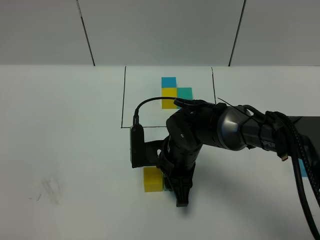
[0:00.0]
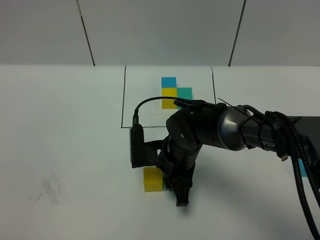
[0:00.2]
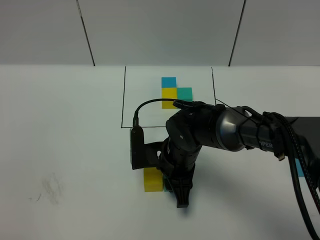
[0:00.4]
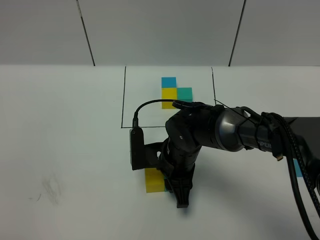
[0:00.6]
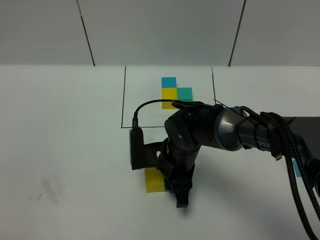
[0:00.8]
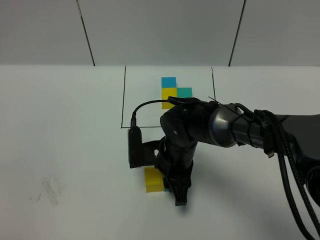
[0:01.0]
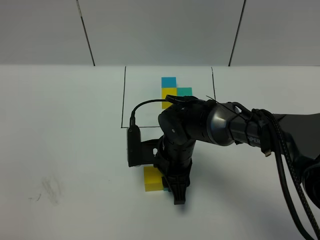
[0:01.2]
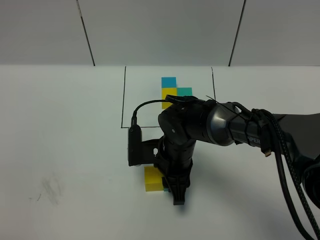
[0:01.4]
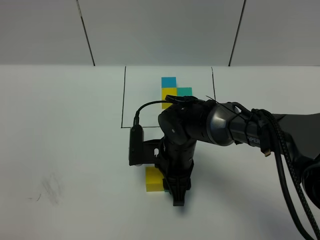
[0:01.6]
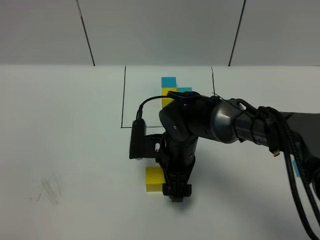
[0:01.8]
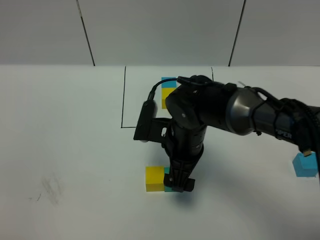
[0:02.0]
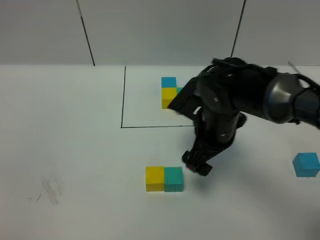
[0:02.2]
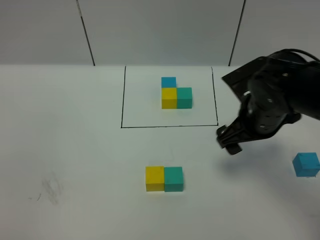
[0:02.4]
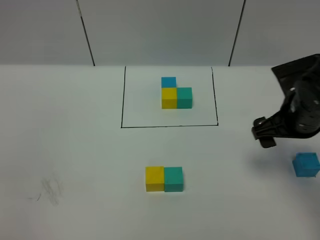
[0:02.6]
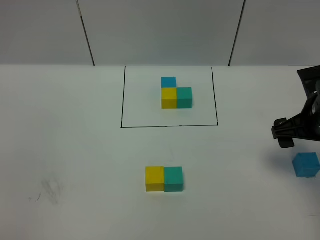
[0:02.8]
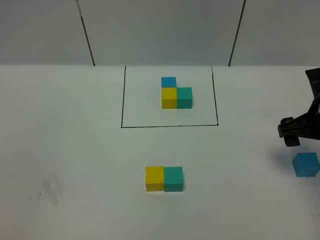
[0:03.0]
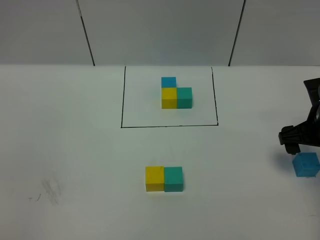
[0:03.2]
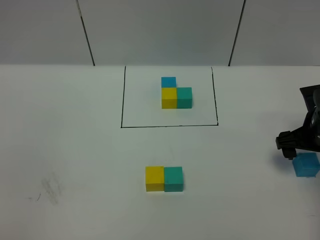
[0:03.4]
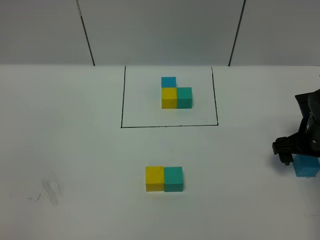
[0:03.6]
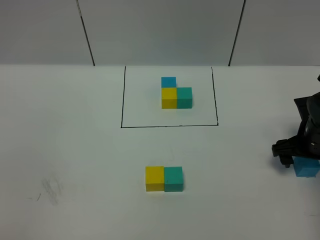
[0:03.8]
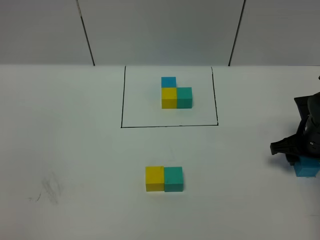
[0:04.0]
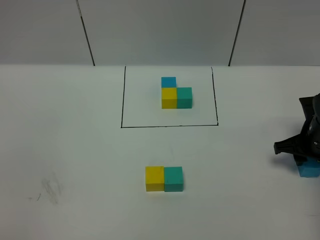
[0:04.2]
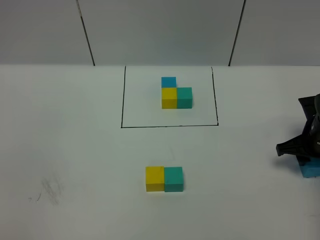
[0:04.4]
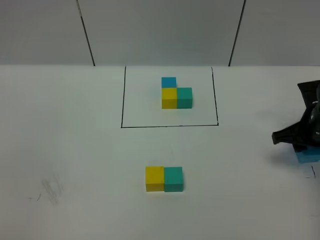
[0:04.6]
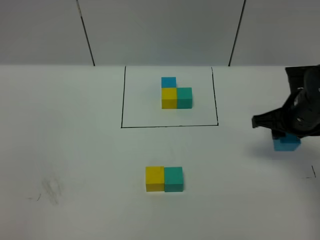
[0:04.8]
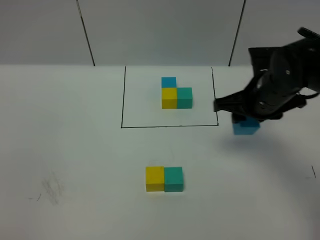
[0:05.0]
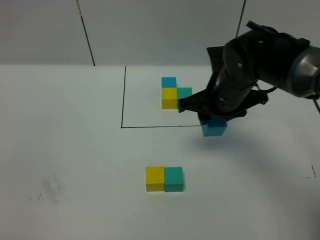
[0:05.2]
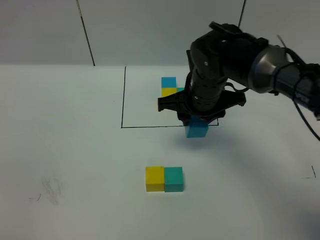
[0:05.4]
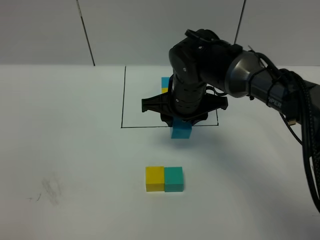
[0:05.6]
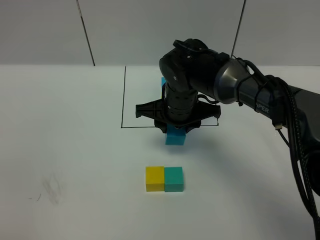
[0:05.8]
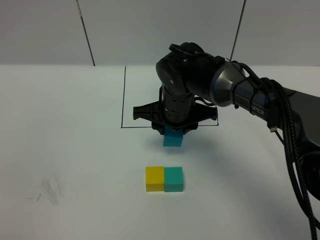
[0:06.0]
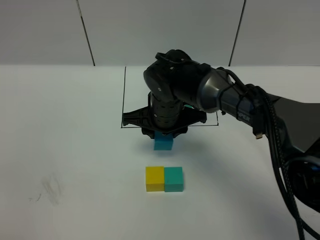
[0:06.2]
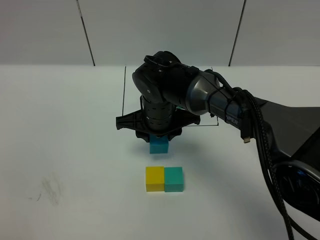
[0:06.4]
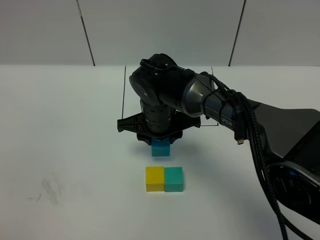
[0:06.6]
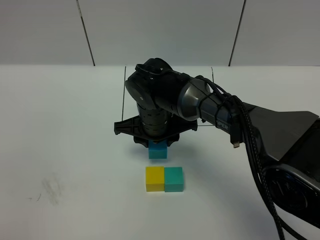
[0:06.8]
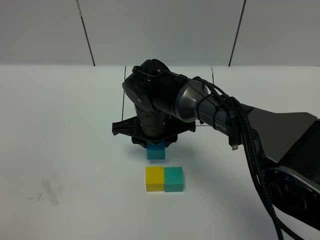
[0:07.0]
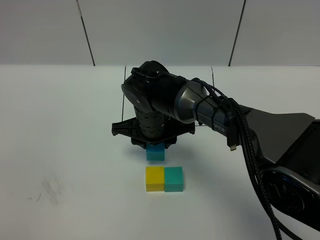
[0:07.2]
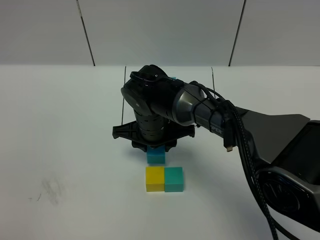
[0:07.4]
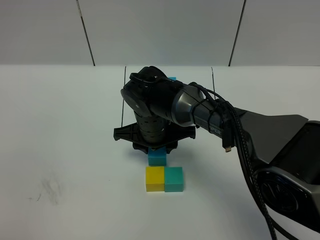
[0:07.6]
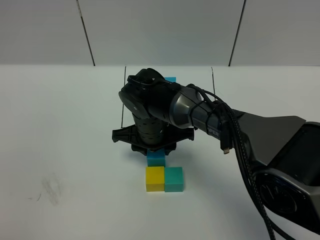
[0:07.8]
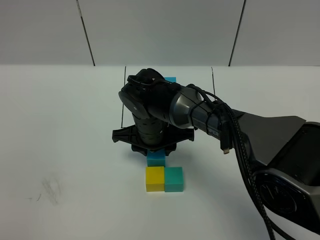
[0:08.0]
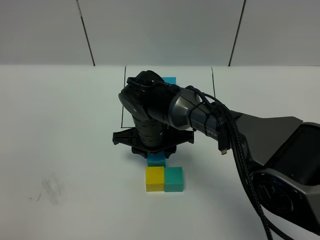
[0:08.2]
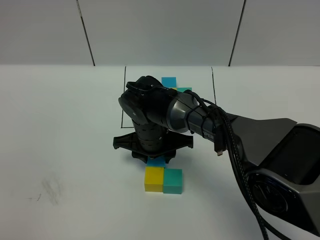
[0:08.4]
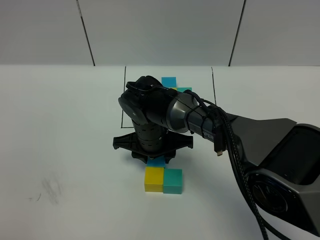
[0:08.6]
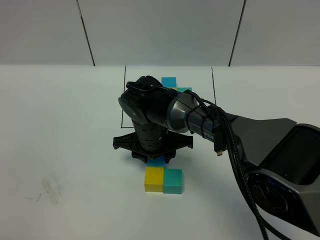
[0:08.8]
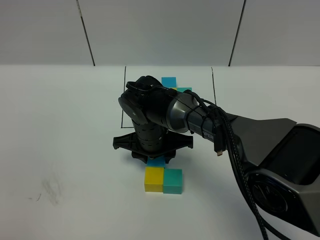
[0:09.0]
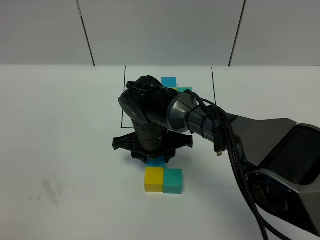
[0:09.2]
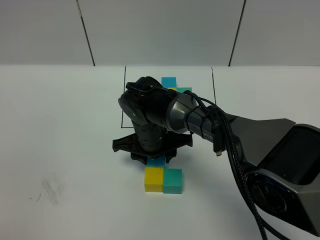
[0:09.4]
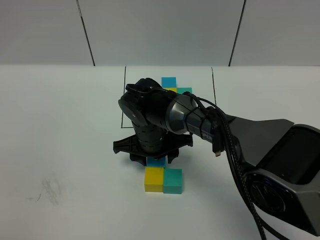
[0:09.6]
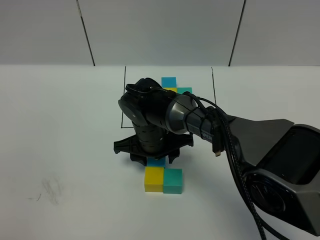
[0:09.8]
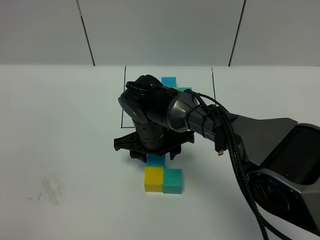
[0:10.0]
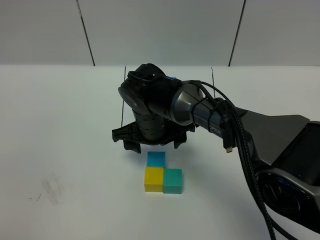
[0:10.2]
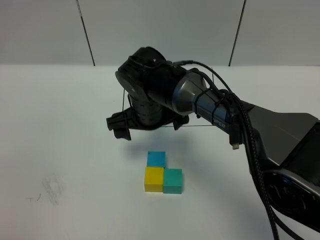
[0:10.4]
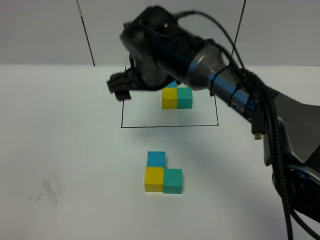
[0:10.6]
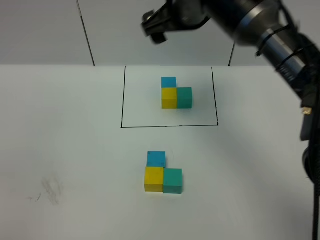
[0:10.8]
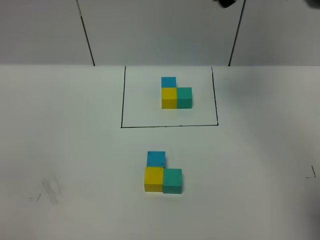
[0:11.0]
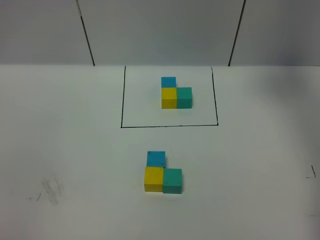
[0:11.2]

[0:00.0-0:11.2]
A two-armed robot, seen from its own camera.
Task of the whole recording: According to the building block template in front, assemble the scattered blocks together.
Step, 0:00.0 to 0:02.2: Put the green cube on the right of the yellow cube.
Step, 0:02.4 to 0:10.0: Put the blue cube in the front of the yellow cube.
0:00.0 to 0:01.6: The grippers move only a little.
0:01.6 to 0:03.2: The right gripper is displaced to the right by some 25 cm, and opens up.
0:03.2 to 0:04.8: The right gripper travels downward and back again, approximately 5 cm each way, and closes up.
0:04.8 to 0:06.4: The right gripper goes roughly 25 cm to the left.
0:06.4 to 0:09.6: The grippers stay close to where they were, moving slightly.
0:09.6 to 0:11.2: The right gripper travels upward and to the right by about 40 cm, and opens.

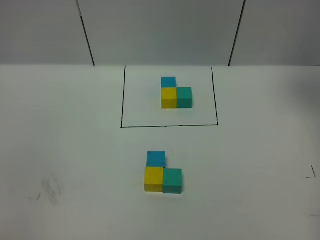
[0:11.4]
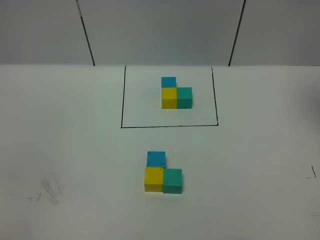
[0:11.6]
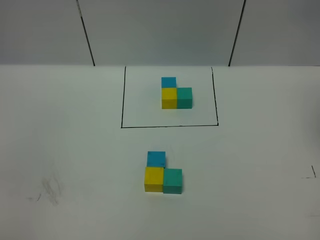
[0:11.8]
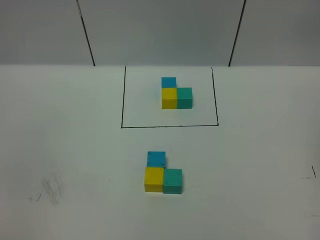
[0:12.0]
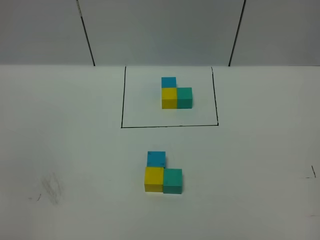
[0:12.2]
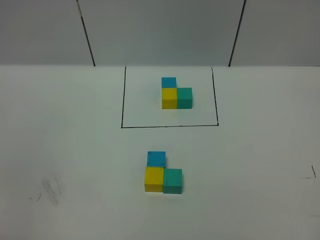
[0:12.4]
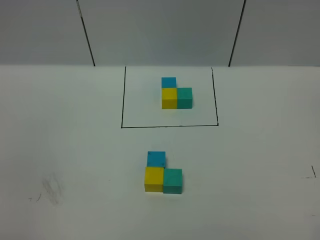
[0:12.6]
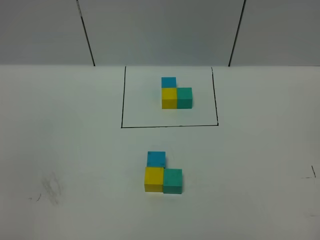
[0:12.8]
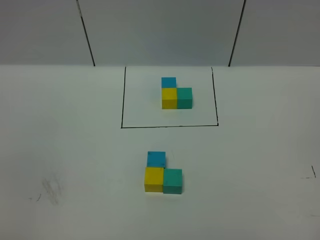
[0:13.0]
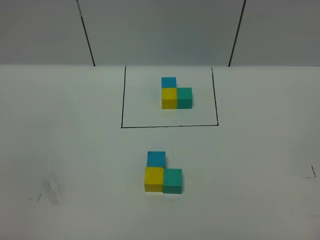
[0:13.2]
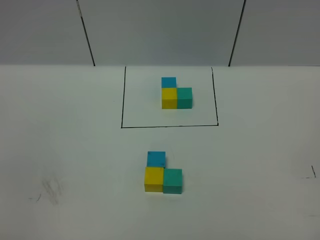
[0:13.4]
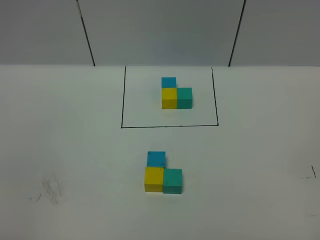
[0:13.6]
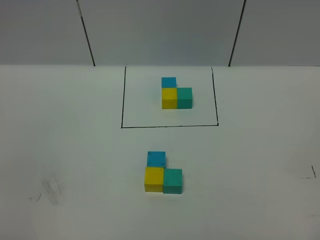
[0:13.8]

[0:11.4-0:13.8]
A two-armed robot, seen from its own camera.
Task of the whole recording: According to the building block template in front, assemble the scattered blocks together.
0:11.4 to 0:12.6: The right gripper travels backward by about 40 cm.

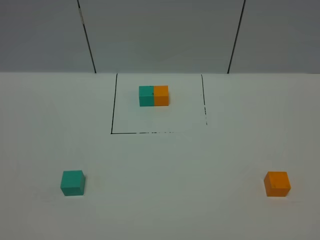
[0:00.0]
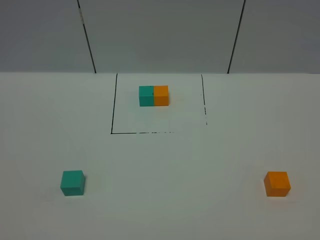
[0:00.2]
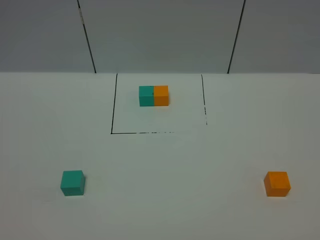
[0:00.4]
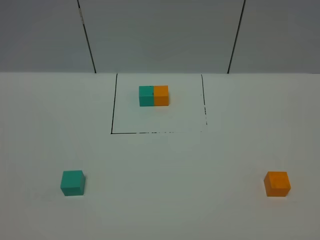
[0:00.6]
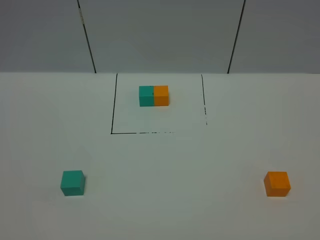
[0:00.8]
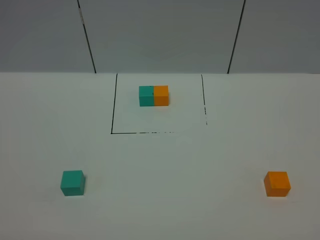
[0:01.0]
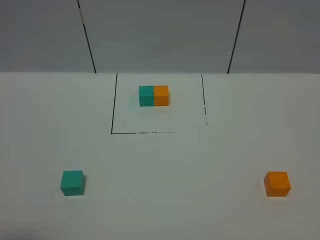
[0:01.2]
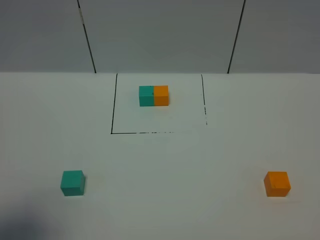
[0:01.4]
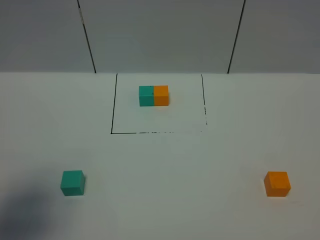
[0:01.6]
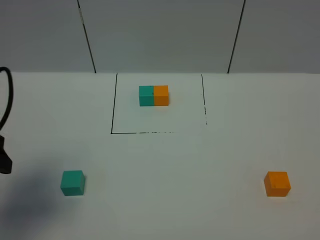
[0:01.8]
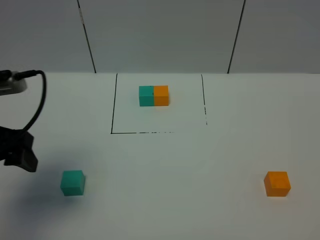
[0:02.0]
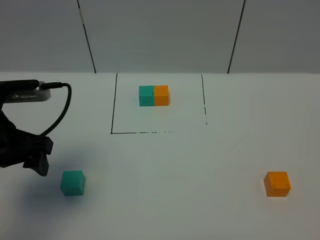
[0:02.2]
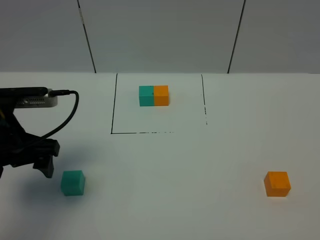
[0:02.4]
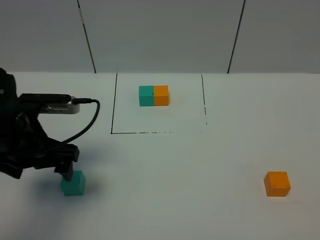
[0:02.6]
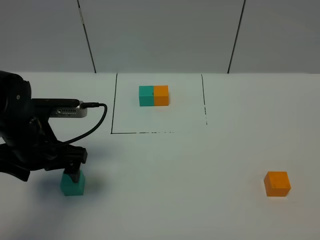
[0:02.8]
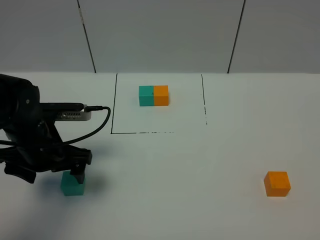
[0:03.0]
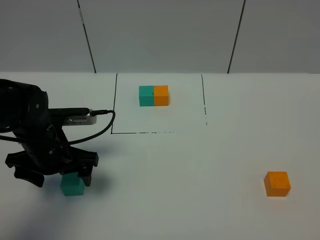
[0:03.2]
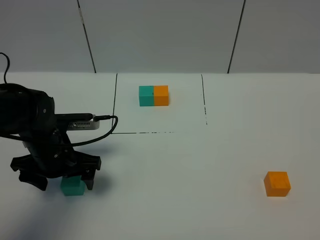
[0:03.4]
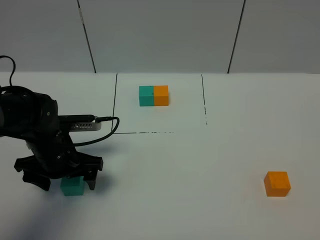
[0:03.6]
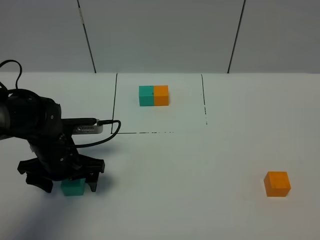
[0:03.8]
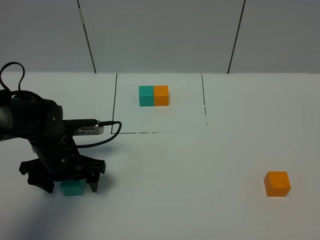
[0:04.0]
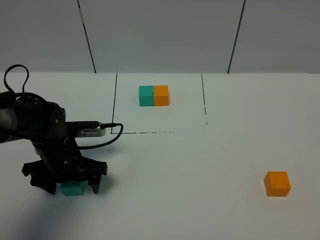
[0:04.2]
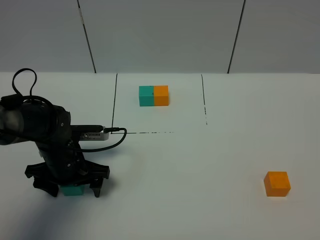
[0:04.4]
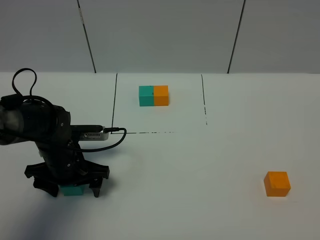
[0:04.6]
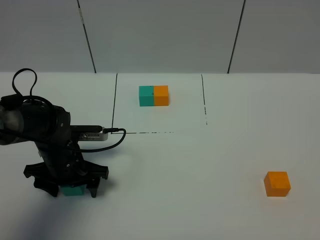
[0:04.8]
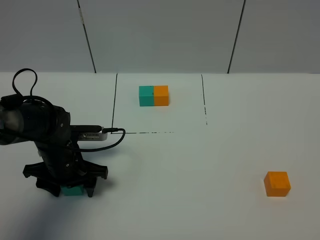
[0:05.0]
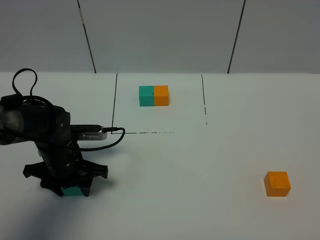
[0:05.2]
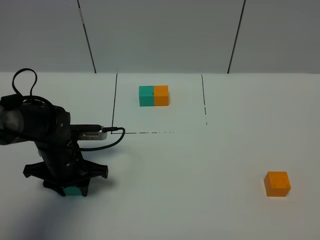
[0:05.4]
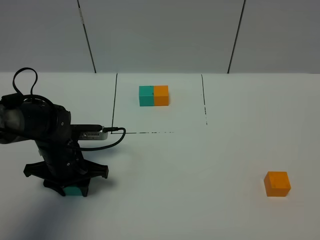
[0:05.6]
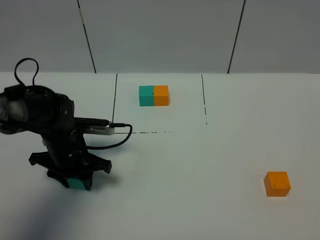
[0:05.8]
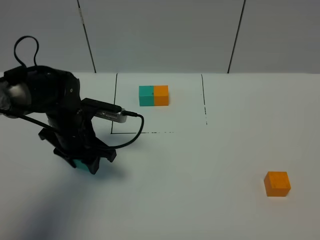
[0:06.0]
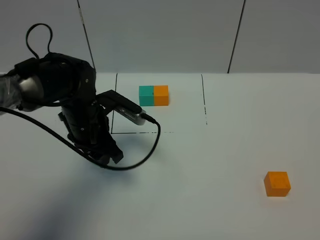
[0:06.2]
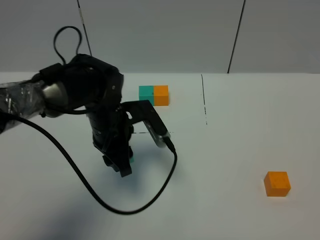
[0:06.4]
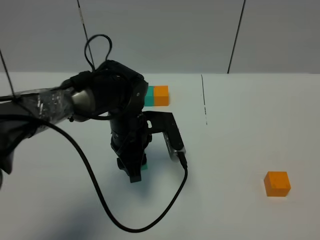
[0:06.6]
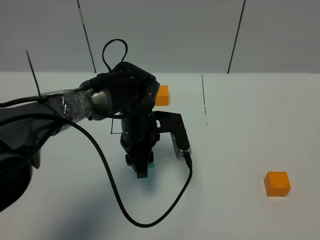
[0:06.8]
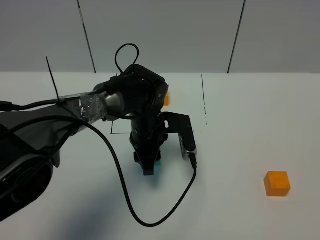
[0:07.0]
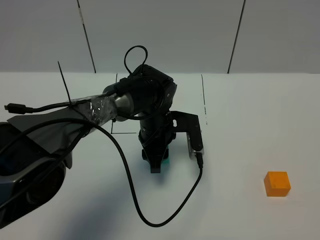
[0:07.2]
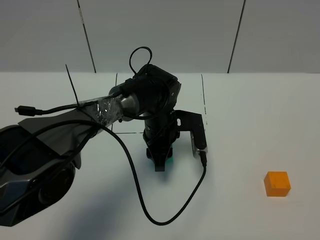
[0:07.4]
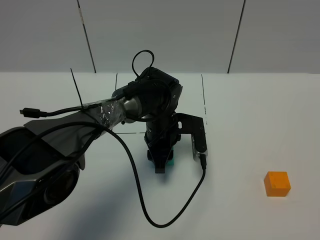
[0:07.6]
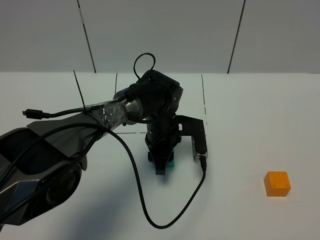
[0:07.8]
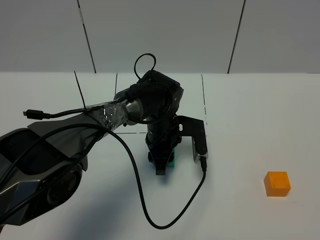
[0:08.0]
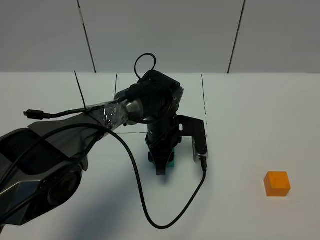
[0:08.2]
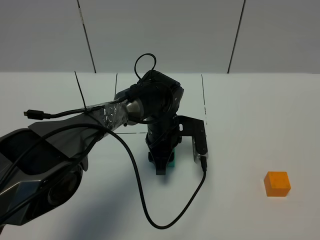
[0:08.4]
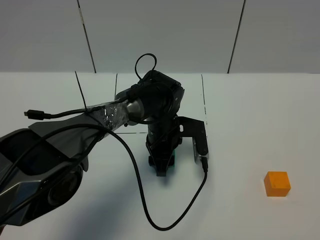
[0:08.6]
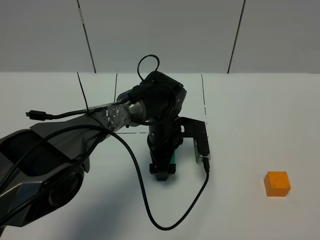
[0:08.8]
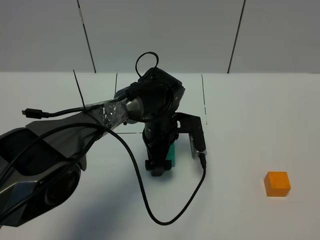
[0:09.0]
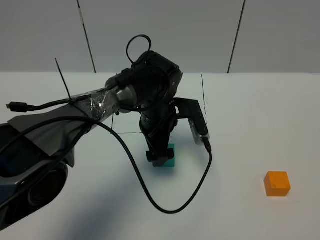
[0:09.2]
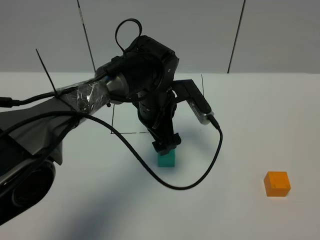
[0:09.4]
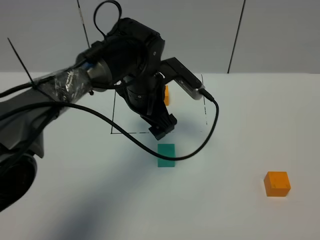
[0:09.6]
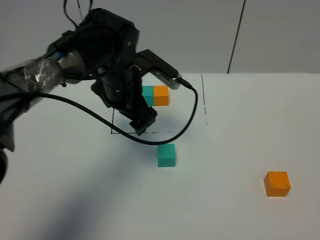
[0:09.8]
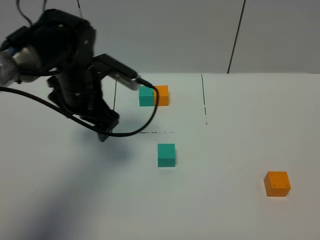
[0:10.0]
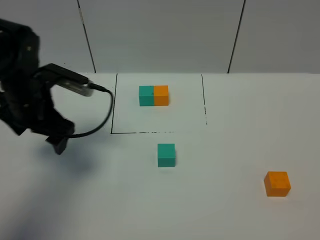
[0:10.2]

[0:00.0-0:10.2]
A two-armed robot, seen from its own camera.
Task of the whole recording: According to the building block template in front, assemble the scattered blocks together.
Step, 0:01.8 to 0:09.4: Put the green cube in the center of the table.
0:00.0 to 0:01.4: The left gripper is displaced forward by approximately 15 cm.
0:01.4 to 0:03.0: The left gripper travels forward, downward and to the right by approximately 25 cm.
0:03.0 to 0:04.4: The left gripper shifts approximately 10 cm downward.
0:04.4 to 0:05.8: The left gripper closes up.
0:05.8 to 0:07.2: The left gripper is displaced to the right by approximately 15 cm.
0:07.2 to 0:08.8: The left gripper opens.
0:08.8 to 0:10.2: The left gripper goes roughly 25 cm to the left and upward.
